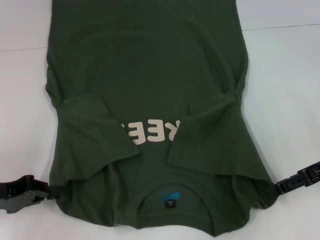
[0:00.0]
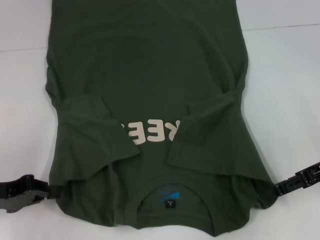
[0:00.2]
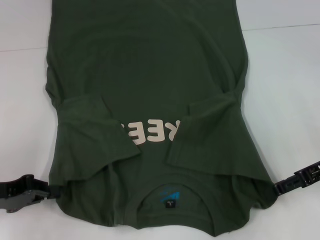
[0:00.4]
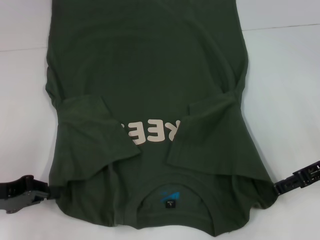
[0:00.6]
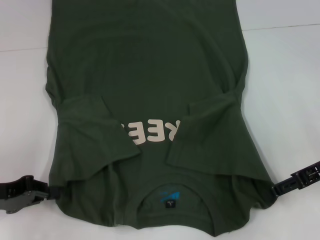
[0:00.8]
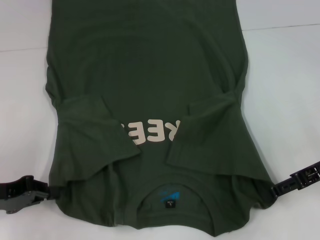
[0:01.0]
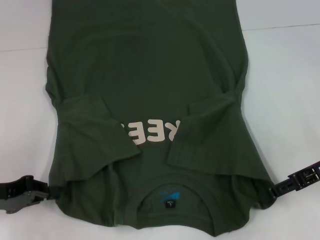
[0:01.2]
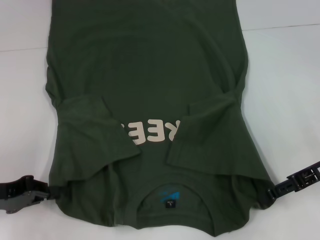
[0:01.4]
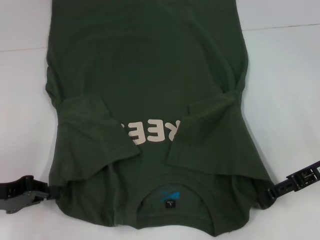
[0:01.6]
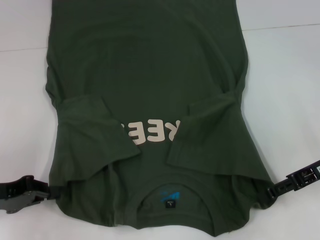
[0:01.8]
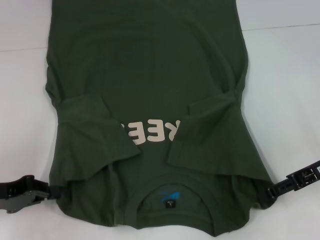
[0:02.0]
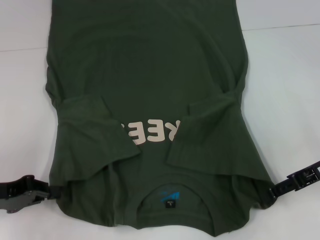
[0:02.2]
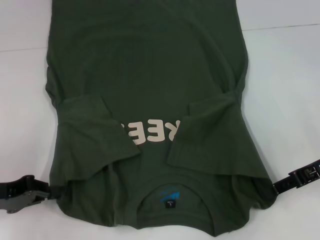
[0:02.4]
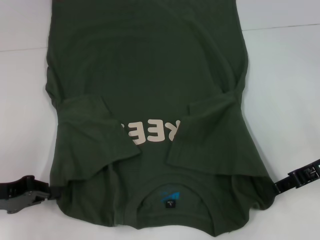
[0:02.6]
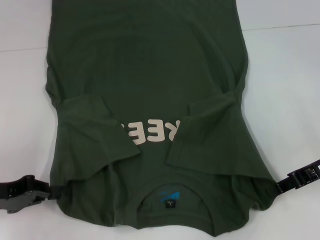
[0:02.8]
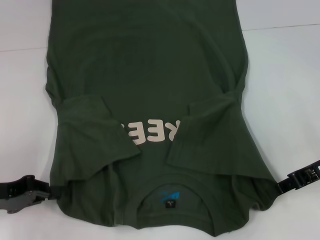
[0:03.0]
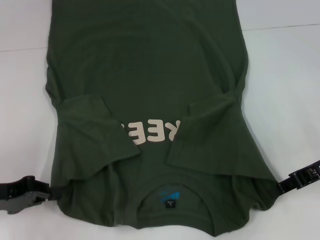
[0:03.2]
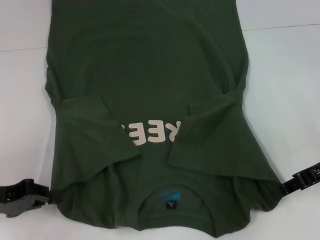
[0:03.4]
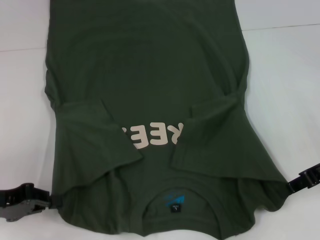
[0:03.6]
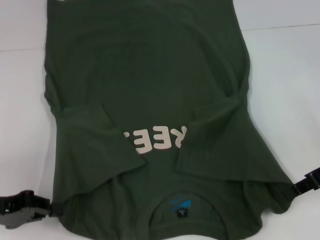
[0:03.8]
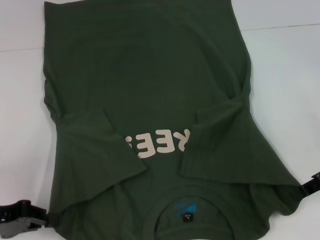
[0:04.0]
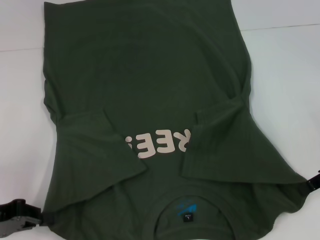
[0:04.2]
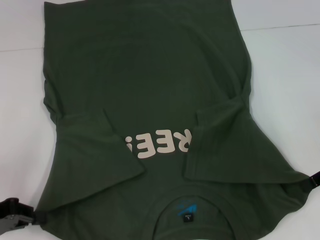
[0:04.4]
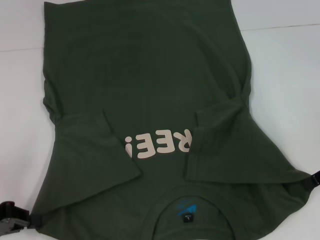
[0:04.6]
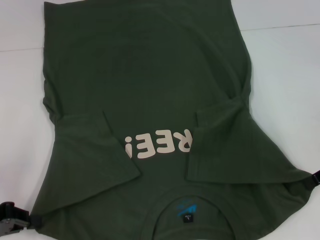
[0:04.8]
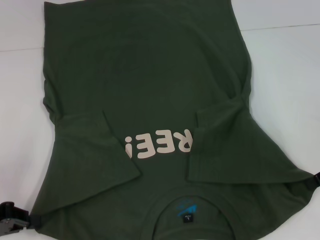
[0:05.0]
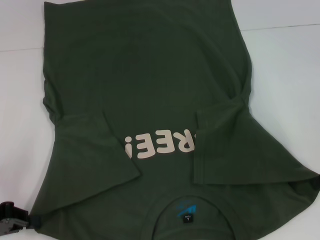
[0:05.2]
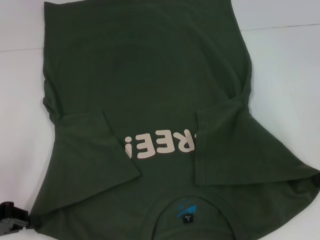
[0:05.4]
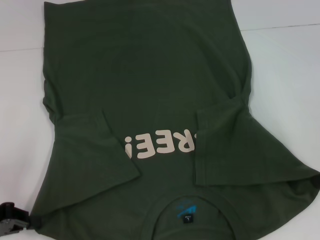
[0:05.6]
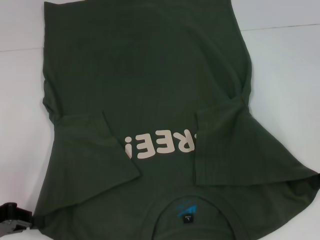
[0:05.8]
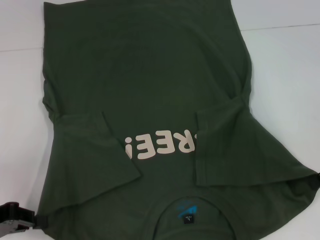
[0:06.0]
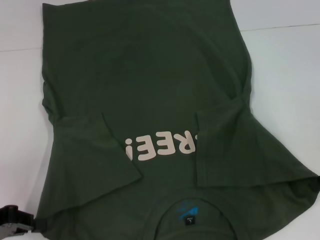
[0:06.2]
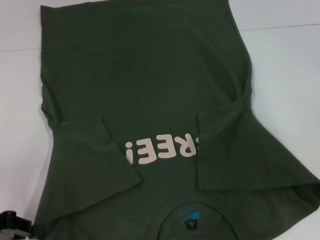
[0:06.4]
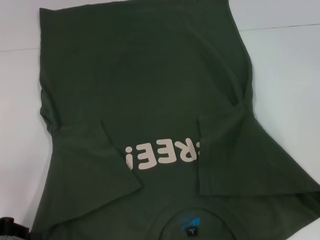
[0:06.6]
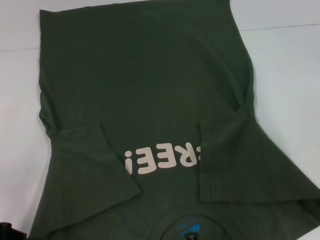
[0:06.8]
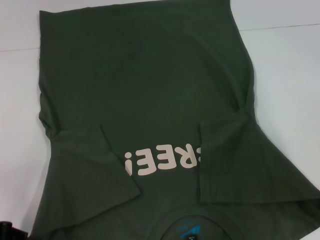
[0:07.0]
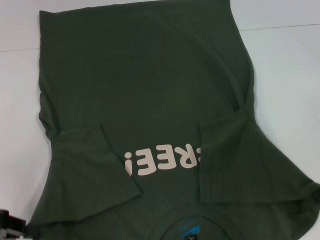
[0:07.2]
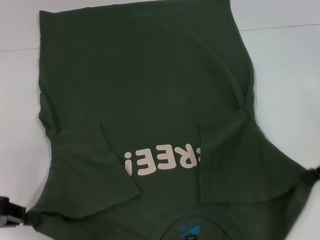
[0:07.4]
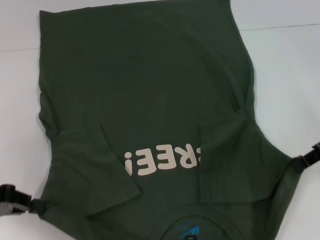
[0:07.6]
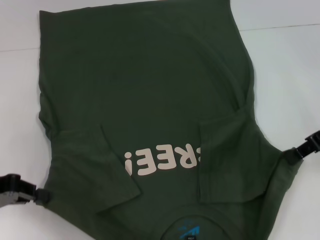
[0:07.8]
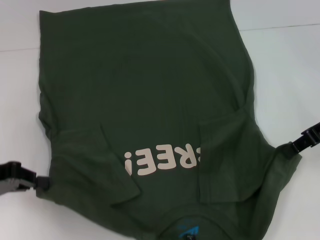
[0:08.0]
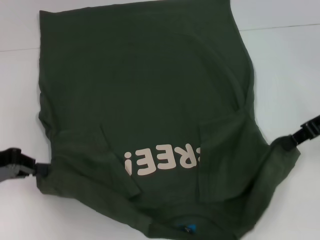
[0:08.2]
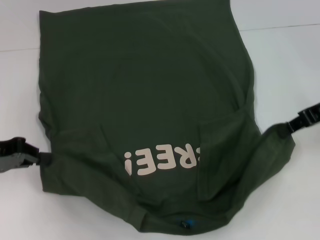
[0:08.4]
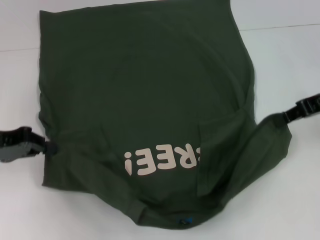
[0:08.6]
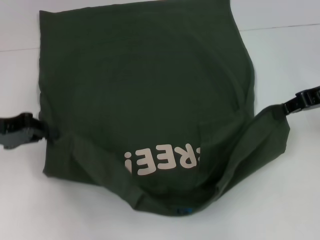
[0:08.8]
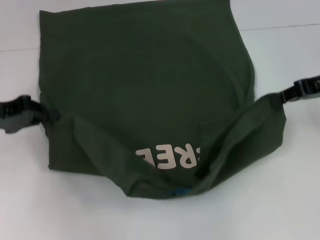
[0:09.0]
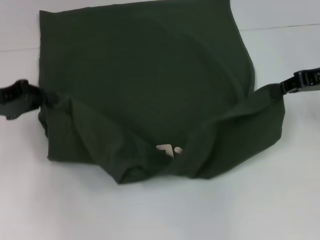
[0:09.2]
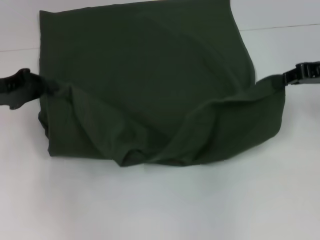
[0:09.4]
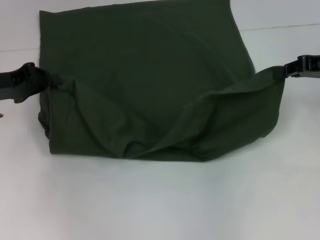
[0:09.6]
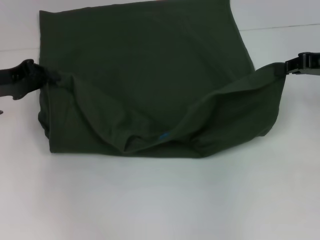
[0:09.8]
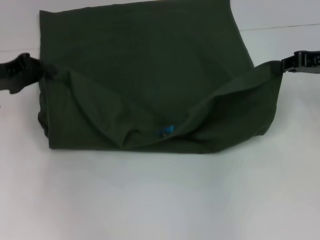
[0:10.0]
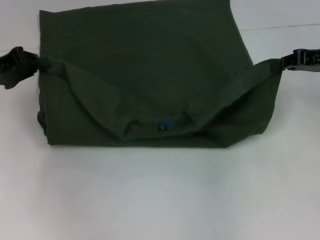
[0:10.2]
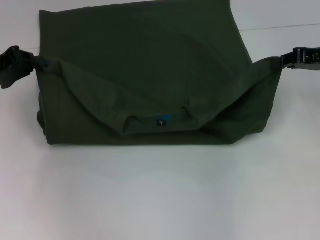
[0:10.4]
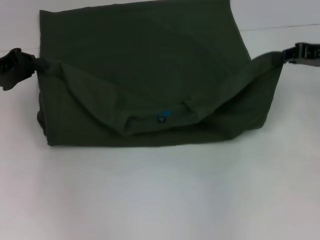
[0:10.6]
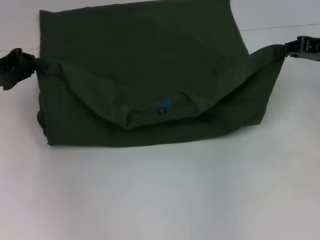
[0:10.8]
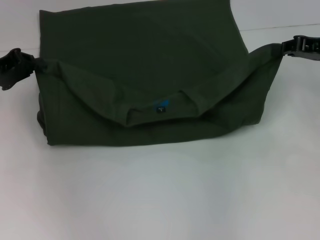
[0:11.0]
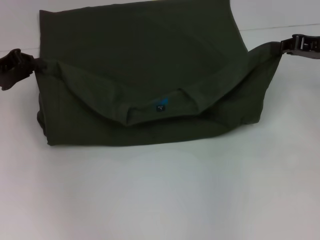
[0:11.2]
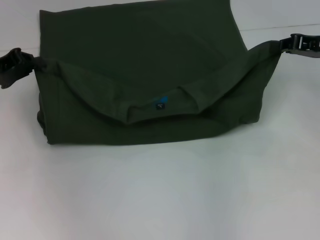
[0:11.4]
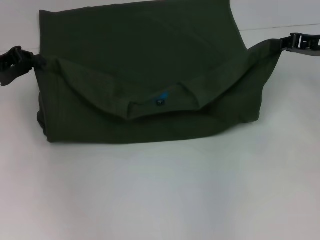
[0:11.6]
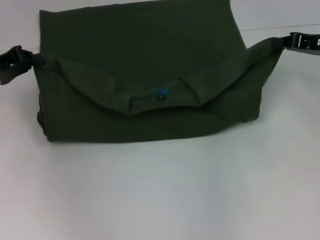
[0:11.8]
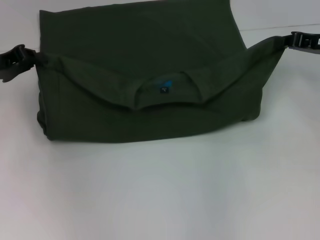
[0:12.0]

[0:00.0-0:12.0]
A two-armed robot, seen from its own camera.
0:01.6 to 0:03.0: The right gripper closes.
0:03.0 to 0:06.0: The grippers move only a little.
0:06.0 to 0:07.6: There are only small adjustments of the grippers.
0:07.6 to 0:09.0: The left gripper shifts approximately 10 cm forward.
0:10.4 to 0:12.0: There are only small adjustments of the grippers.

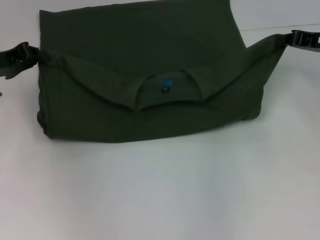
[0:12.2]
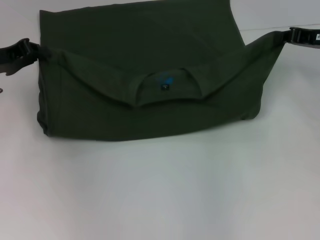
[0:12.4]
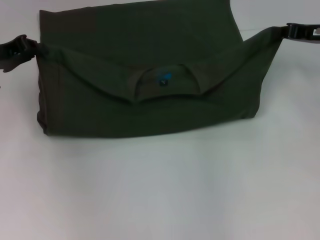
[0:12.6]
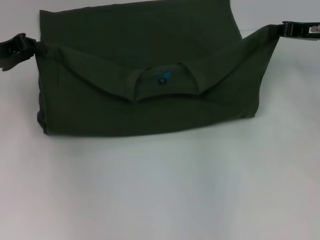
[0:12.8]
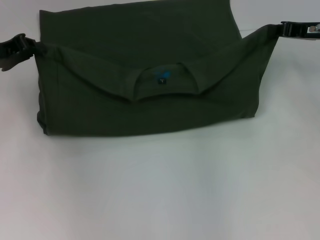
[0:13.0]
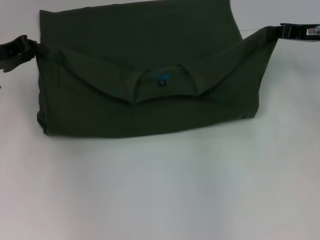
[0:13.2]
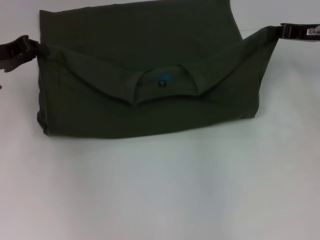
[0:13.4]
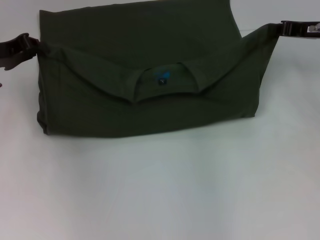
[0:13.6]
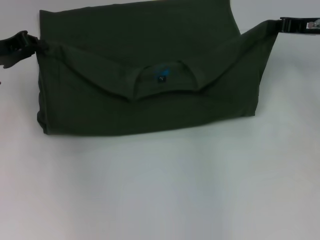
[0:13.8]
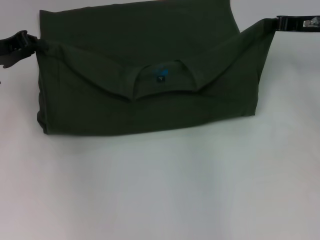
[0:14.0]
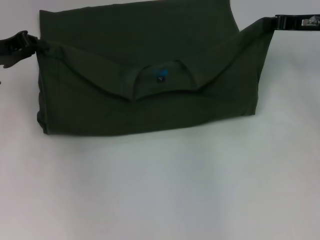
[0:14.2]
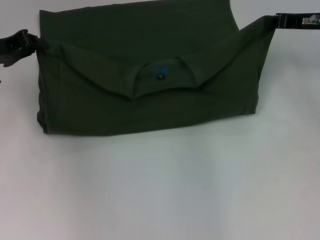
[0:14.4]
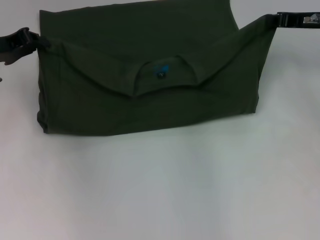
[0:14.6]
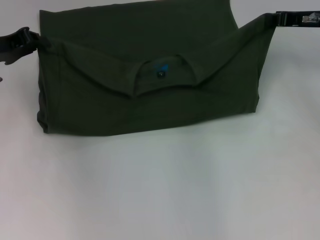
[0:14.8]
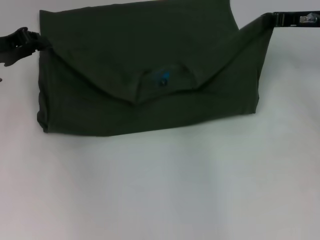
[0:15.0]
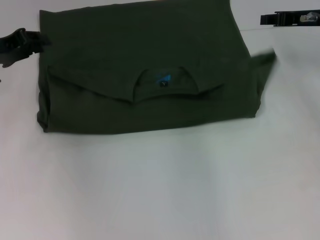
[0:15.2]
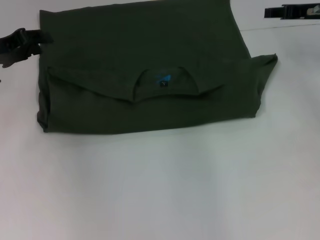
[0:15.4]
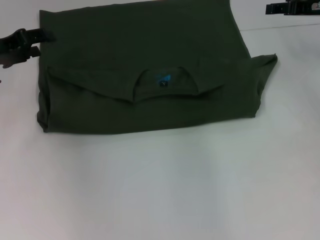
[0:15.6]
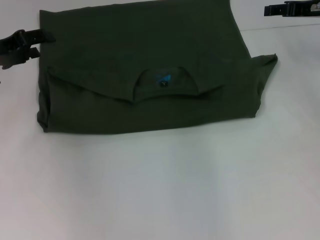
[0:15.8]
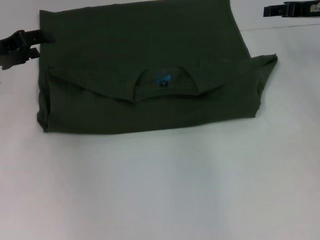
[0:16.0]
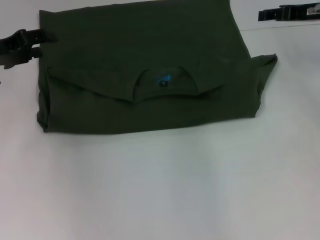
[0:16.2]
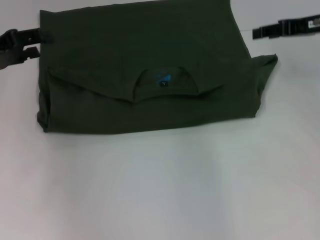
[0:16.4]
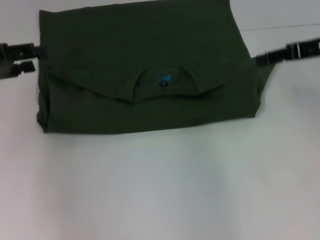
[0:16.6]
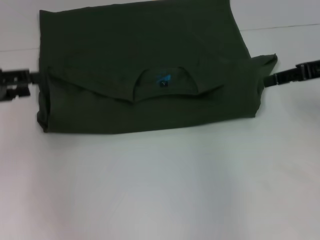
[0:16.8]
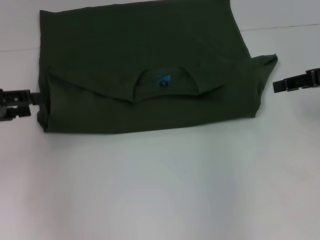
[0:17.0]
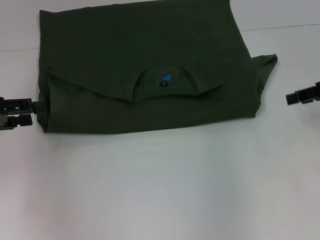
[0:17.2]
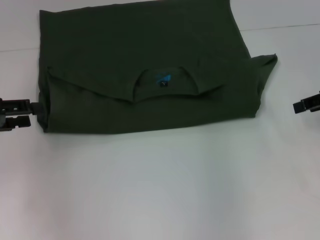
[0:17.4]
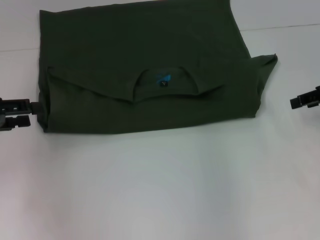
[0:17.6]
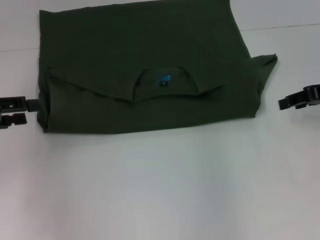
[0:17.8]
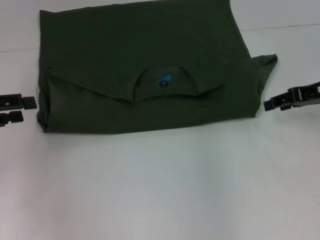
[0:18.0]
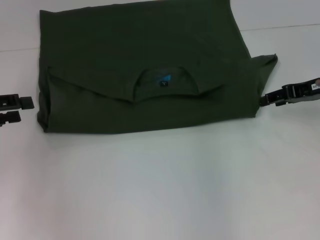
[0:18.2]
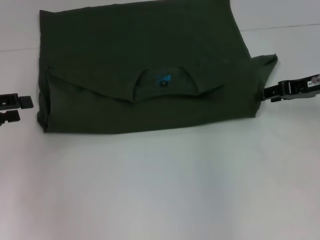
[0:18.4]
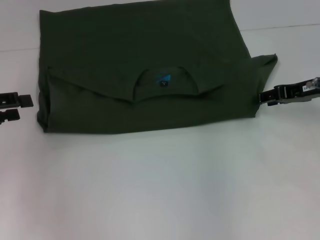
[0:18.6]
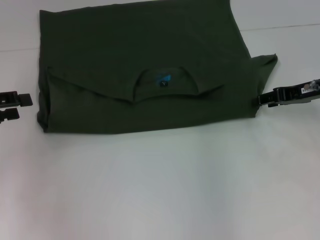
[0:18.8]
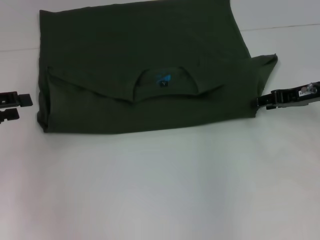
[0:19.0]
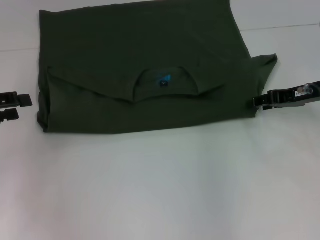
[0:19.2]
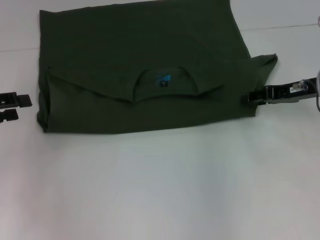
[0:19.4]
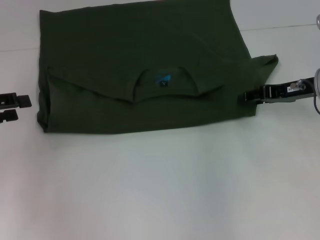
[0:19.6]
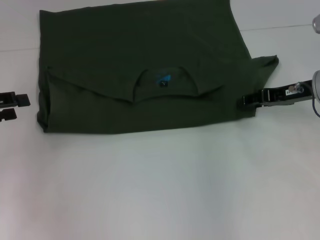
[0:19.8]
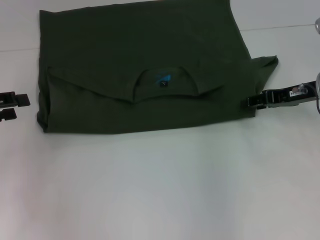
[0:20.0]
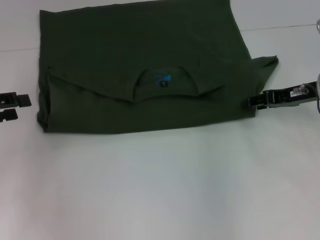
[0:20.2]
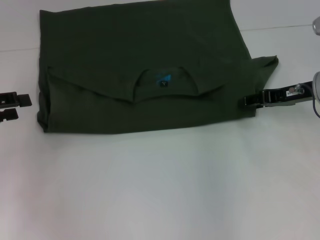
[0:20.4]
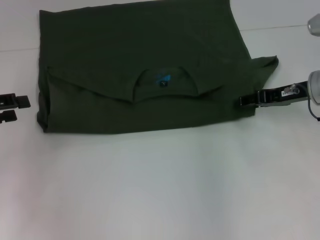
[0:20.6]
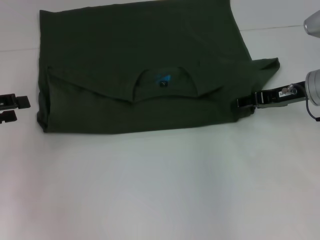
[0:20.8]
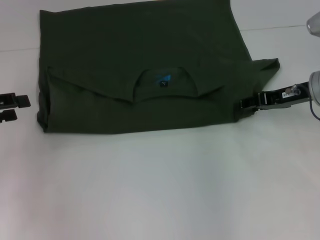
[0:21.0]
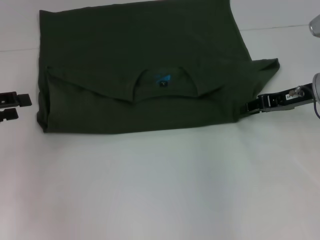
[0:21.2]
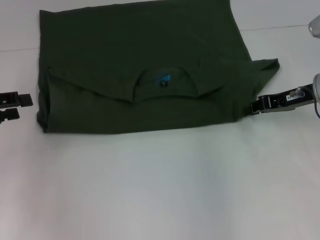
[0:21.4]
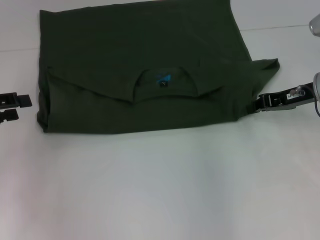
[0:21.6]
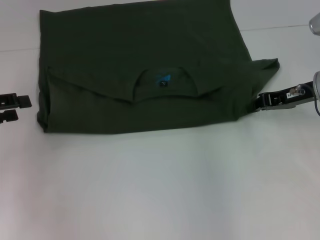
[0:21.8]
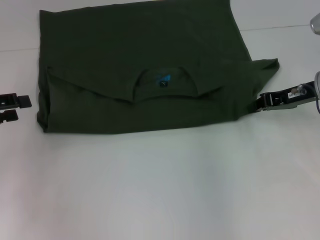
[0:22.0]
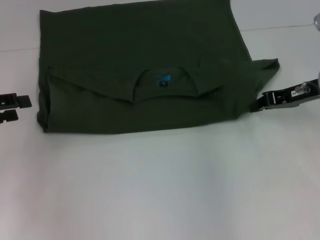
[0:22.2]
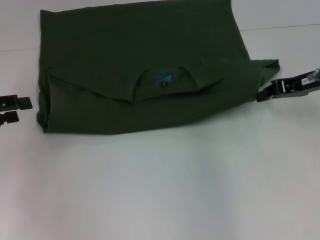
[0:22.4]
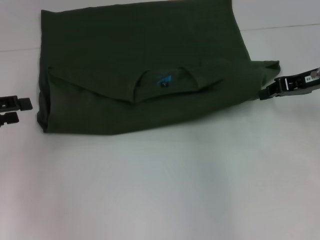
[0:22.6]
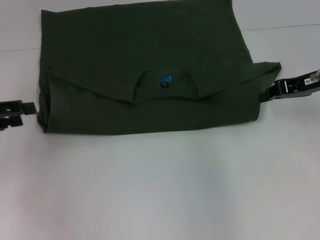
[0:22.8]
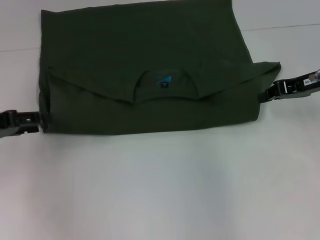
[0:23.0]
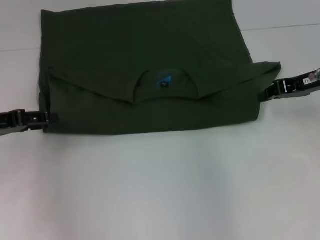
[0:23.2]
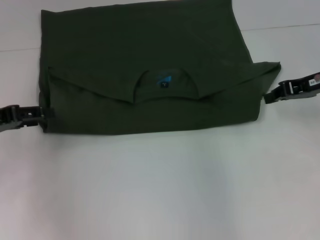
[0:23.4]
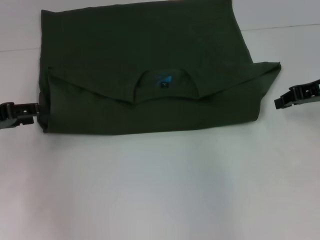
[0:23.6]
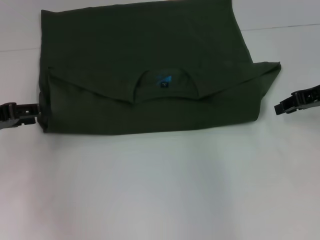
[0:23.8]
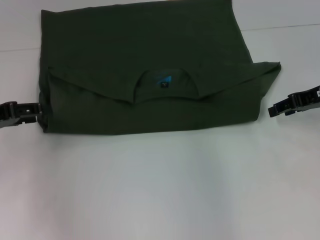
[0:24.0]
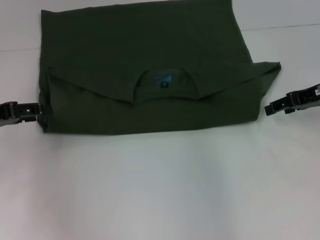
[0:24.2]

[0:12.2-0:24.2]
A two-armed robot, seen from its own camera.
Step, 0:12.2 to 0:15.2: Fold the clothes with your left hand.
Step, 0:12.2 to 0:15.2: Fold the clothes with your right hand.
0:12.2 to 0:15.2: The grippers move only a little.
0:15.2 to 0:16.6: The left gripper changes place by roughly 5 cm, and opens. Meanwhile the right gripper travels backward by roughly 5 cm, and opens its fingers.
0:16.6 to 0:18.2: The right gripper heads downward, covering approximately 5 cm. Meanwhile the left gripper shifts by about 5 cm.
0:18.2 to 0:19.8: The grippers move only a little.
0:19.8 to 0:21.2: Both grippers stay put.
0:21.2 to 0:22.6: The right gripper closes its fingers.
0:22.6 to 0:24.2: The right gripper opens its fingers.
